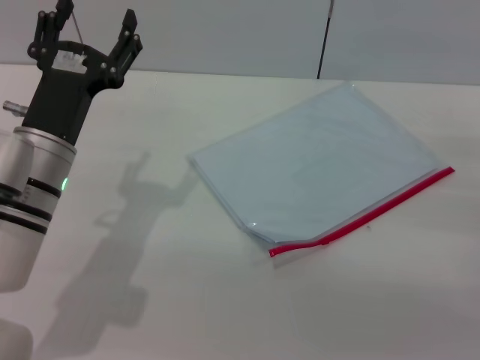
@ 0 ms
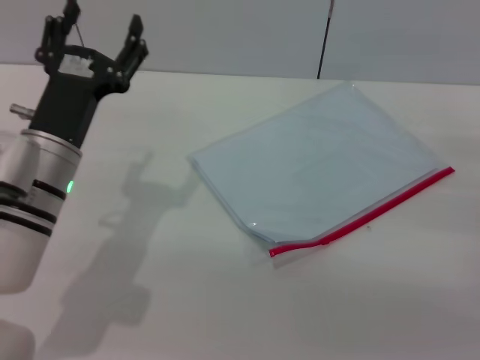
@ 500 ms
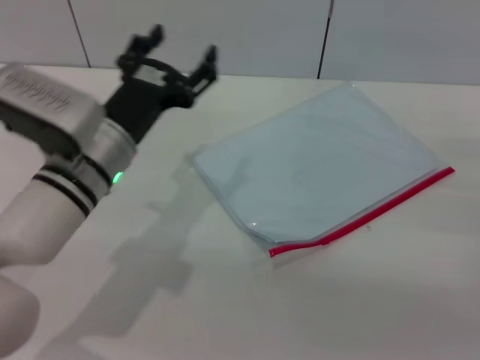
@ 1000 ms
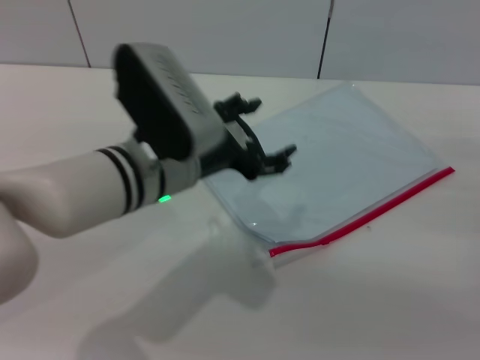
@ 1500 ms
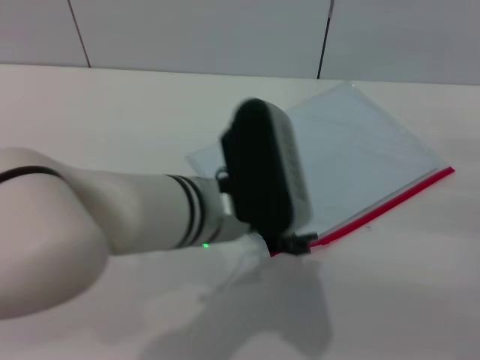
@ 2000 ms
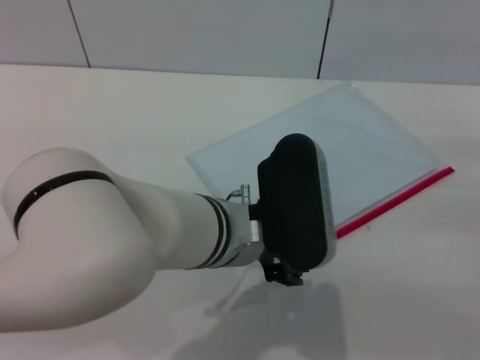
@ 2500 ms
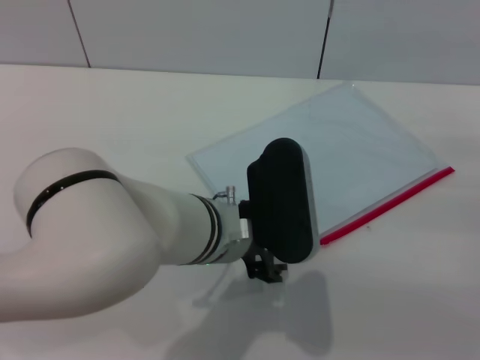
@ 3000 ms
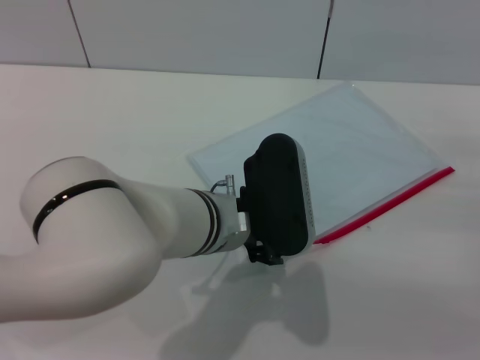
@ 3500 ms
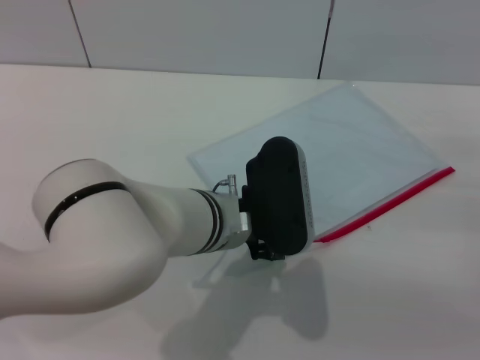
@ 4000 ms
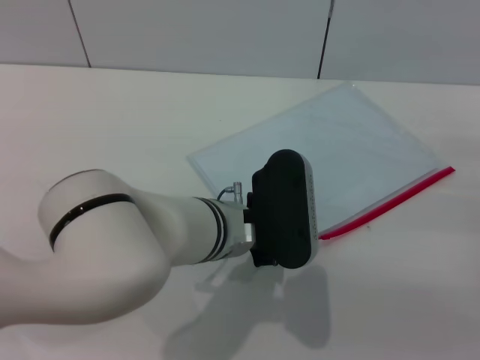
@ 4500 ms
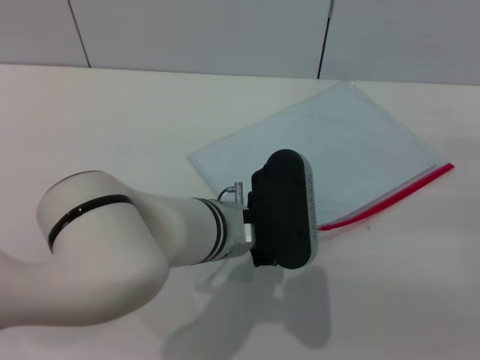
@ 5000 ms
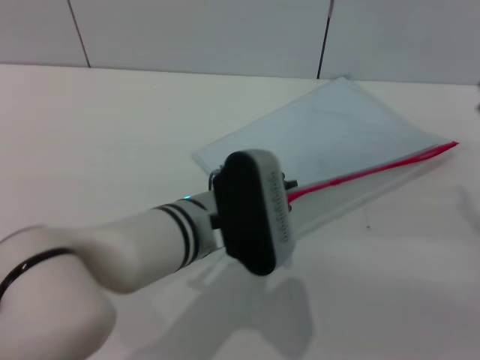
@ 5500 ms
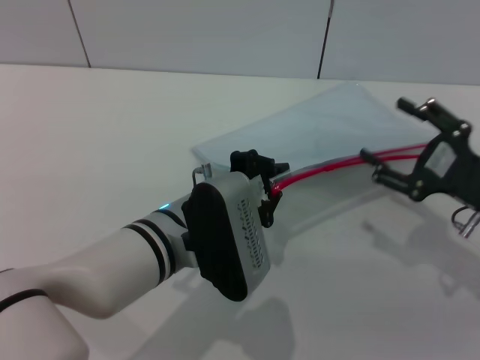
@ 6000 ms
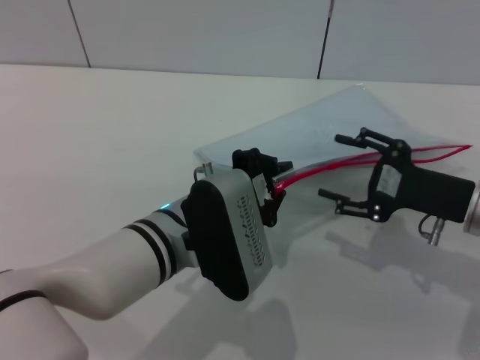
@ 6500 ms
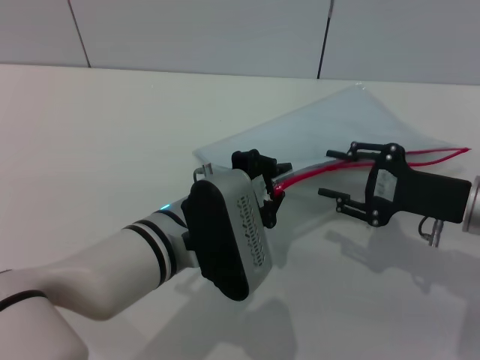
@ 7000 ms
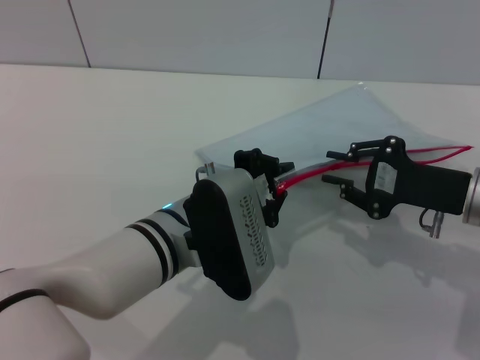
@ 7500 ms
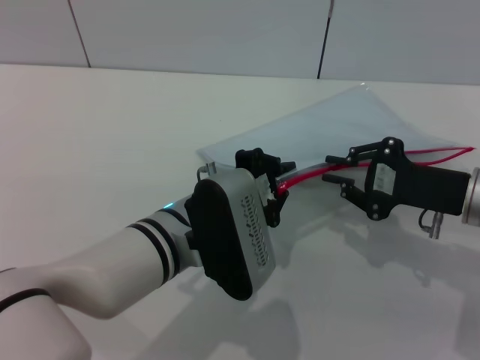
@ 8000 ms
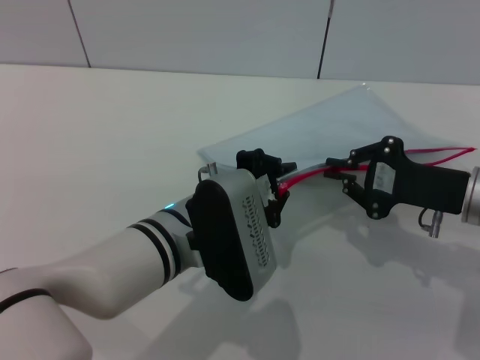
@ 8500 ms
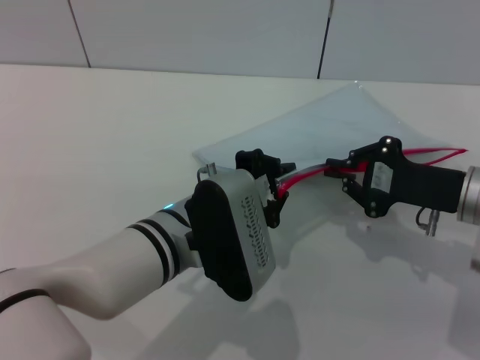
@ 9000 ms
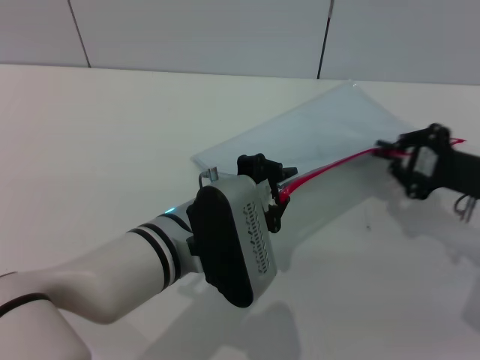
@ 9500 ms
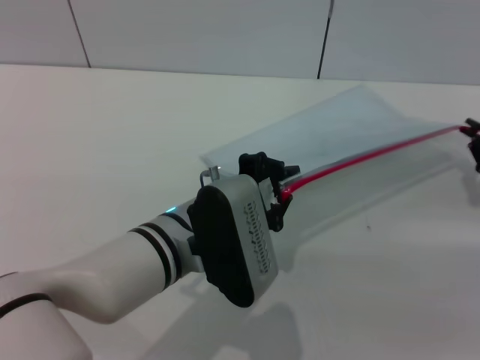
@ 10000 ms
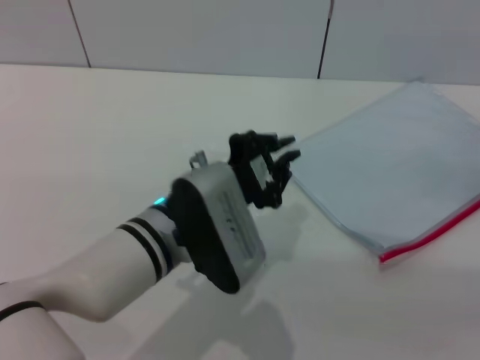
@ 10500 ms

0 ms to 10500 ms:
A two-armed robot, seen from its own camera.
Step, 0 ms to 6500 ms: Pick up the transparent plastic bag with the left gripper.
Step, 7000 ms to 10000 ms: Pulling up the zipper on the transparent plastic bag with the right gripper to close it.
0 ms to 2000 ms: The left gripper heads to the right, covering roughly 15 cm.
2000 ms to 4000 ms: The grippers move only a little.
4000 ms to 6500 ms: The right gripper heads to the left, covering roughly 10 cm. The left gripper closes its fingers.
6500 ms to 8500 ms: The right gripper closes up.
8500 ms to 10500 ms: The right gripper shifts about 10 cm to the right.

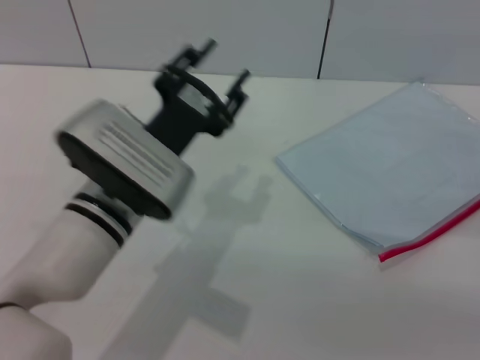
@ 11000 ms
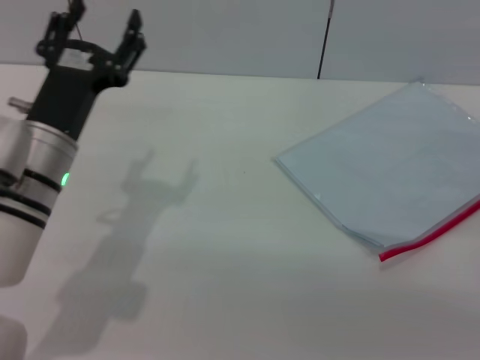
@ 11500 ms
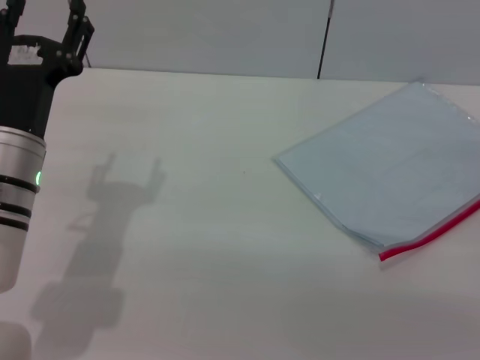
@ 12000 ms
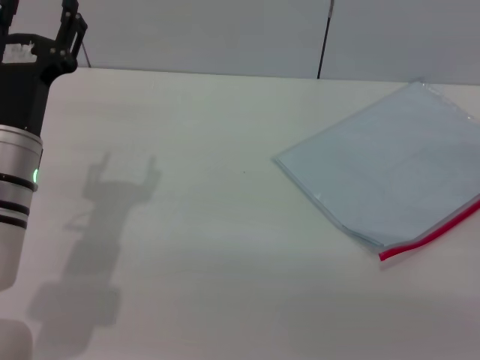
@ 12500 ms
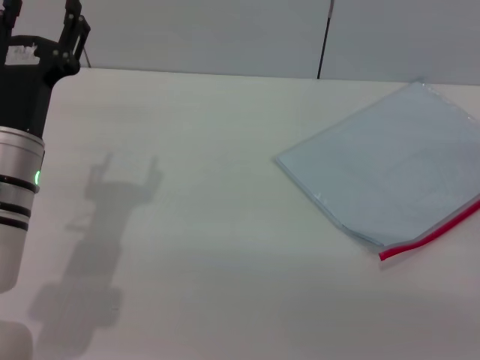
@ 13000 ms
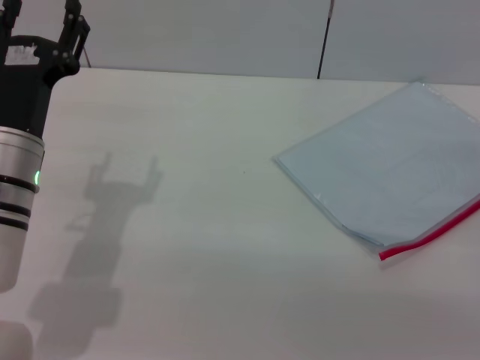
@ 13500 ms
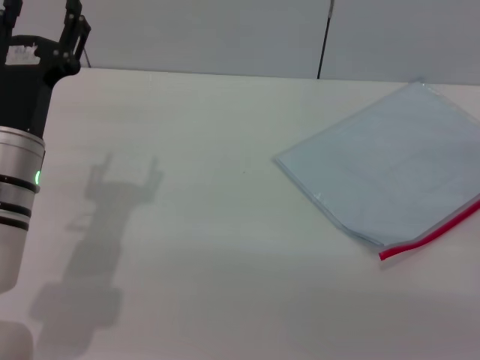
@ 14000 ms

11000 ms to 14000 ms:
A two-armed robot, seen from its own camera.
11000 ms to 12500 ms: The left gripper heads to the left, covering roughly 10 cm, and opens.
12500 ms to 14000 ms: The two grippers keep their place.
